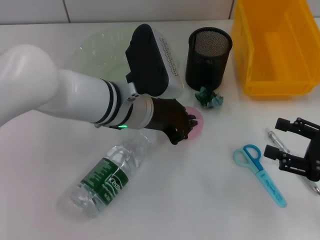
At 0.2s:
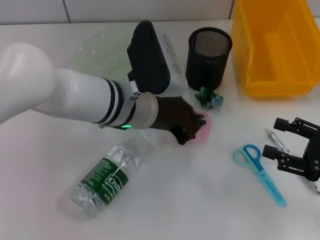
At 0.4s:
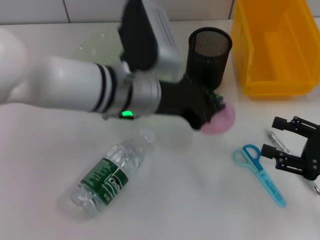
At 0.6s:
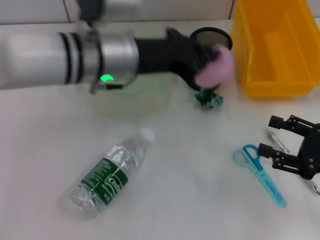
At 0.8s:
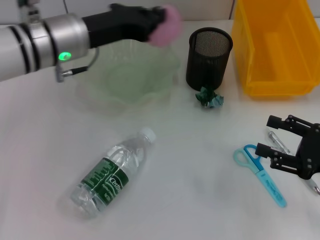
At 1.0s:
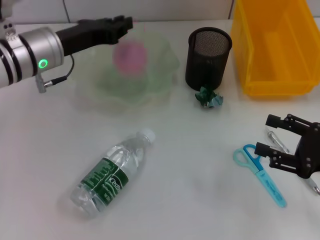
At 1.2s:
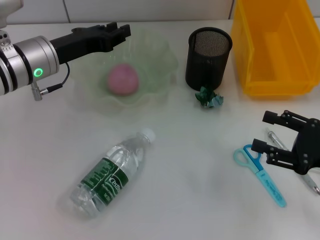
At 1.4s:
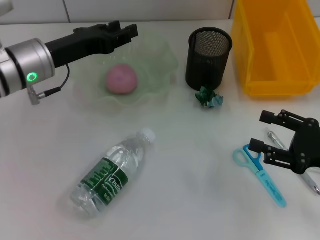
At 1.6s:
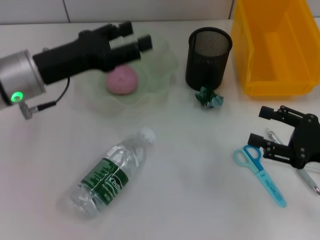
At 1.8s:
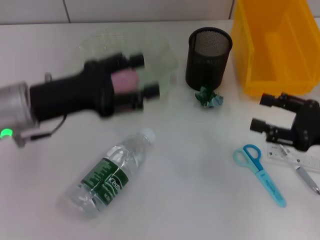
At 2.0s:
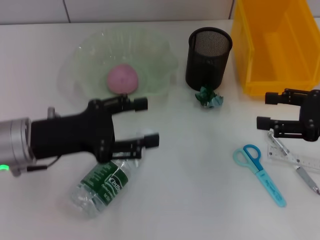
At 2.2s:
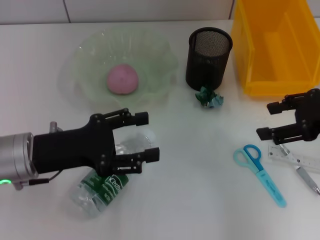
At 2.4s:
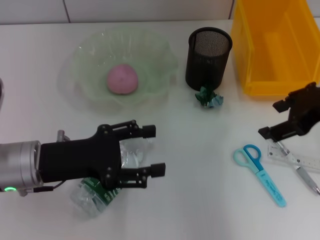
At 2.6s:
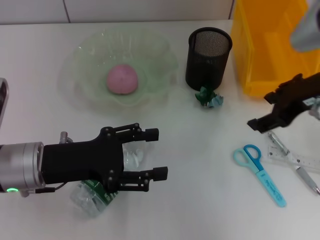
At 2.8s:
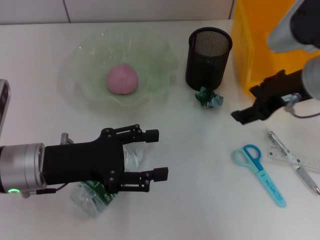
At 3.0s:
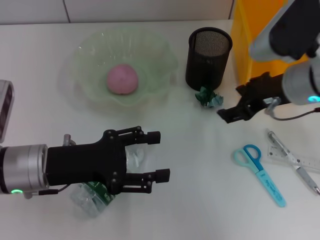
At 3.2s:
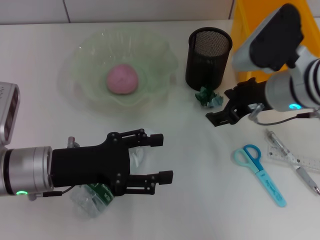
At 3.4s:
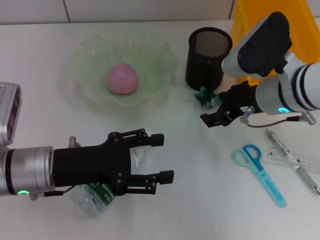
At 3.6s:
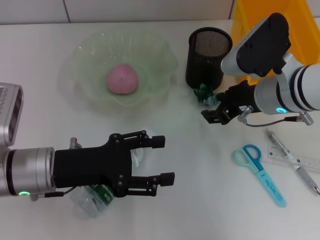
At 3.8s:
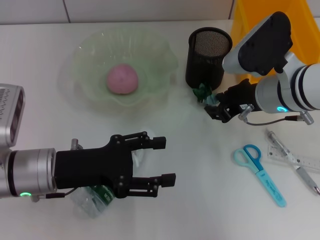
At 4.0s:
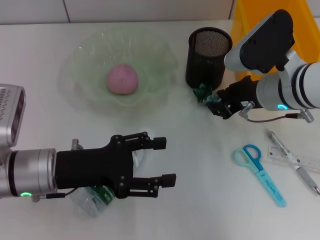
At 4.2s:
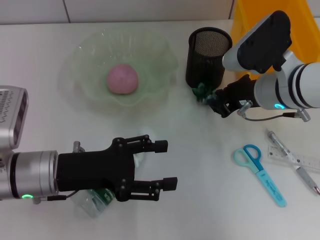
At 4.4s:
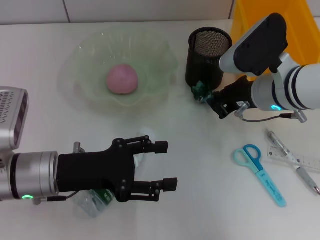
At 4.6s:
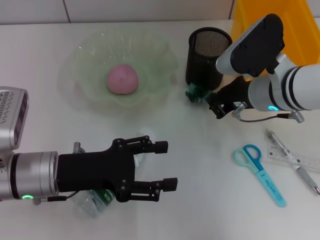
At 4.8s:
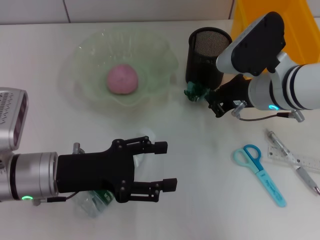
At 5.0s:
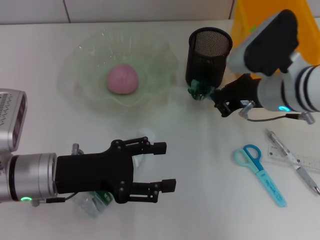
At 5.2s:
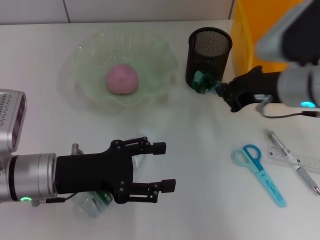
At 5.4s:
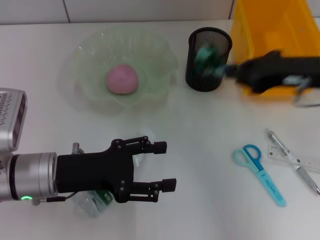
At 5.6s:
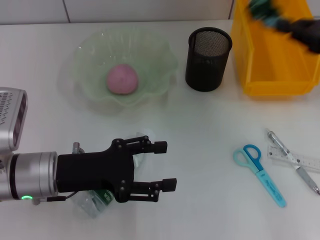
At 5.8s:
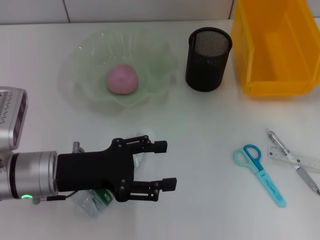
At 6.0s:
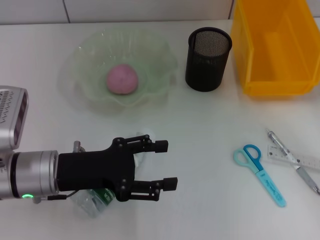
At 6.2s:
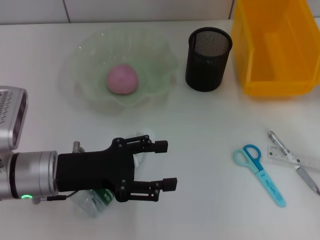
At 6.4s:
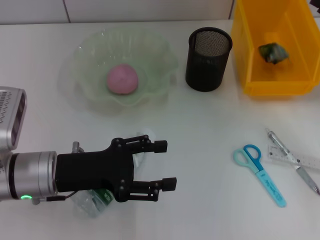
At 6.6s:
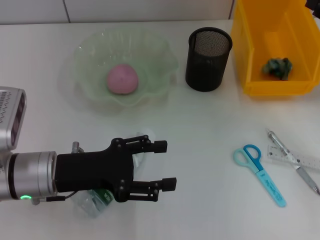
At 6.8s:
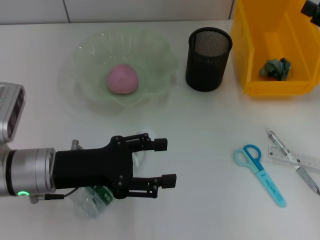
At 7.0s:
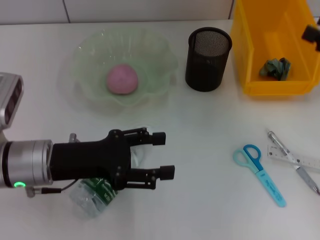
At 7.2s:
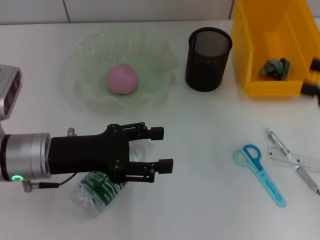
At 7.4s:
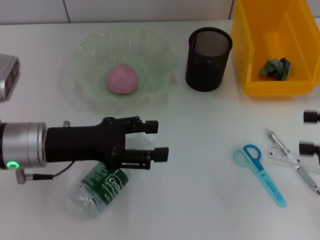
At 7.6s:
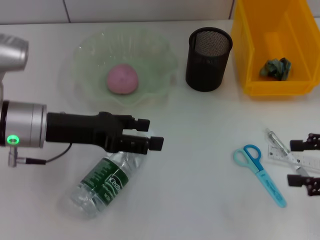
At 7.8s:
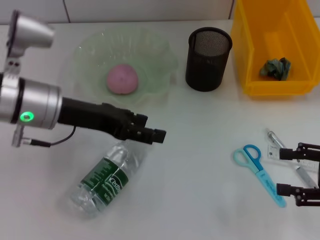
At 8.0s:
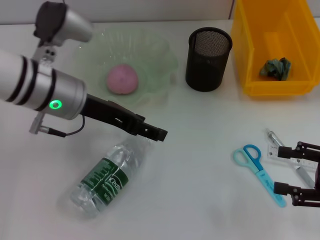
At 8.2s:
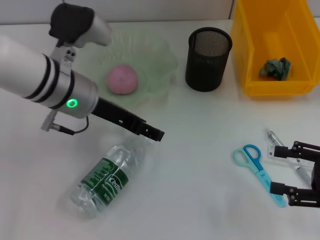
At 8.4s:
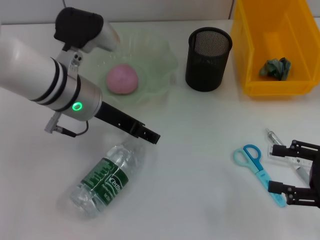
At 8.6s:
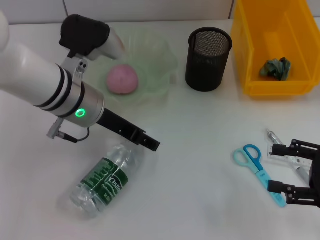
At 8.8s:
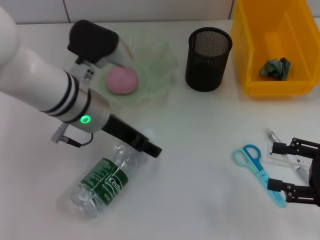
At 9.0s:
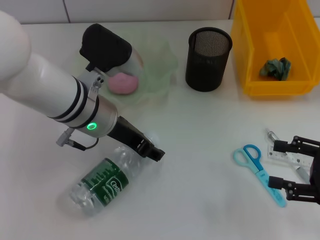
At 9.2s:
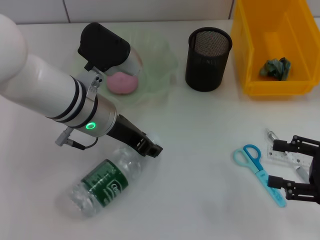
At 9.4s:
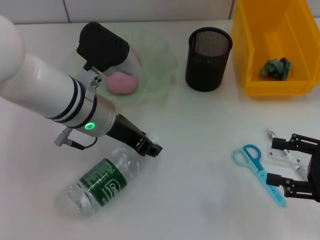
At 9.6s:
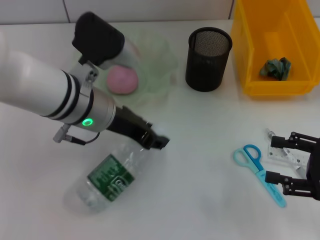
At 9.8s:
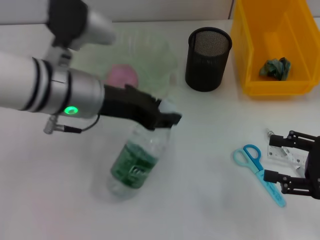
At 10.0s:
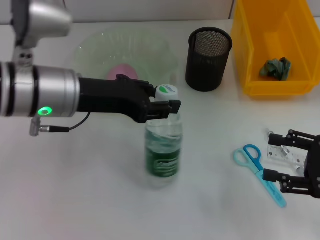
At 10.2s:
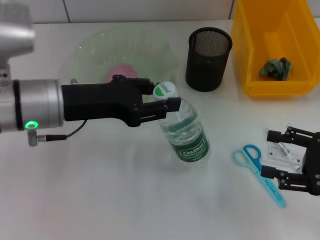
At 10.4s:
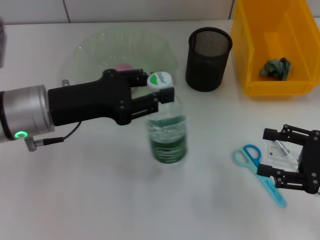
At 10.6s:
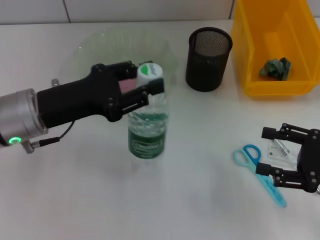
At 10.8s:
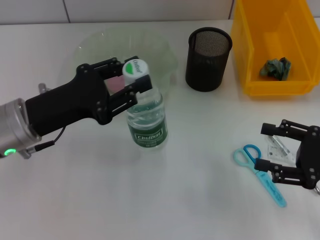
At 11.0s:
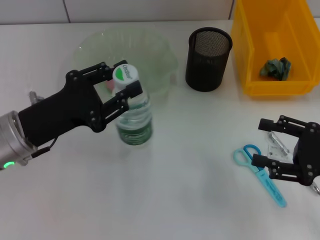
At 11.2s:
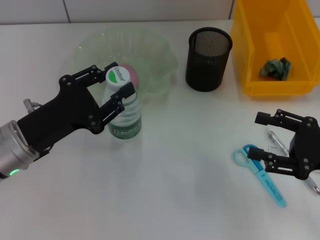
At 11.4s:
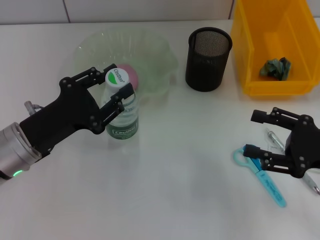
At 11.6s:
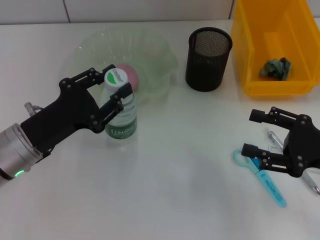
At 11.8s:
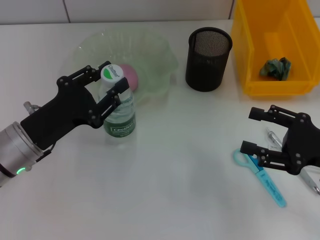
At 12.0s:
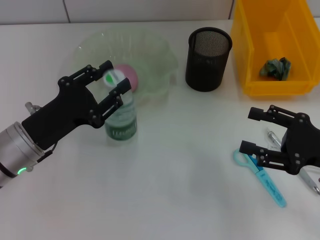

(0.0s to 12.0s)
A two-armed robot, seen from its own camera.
Step, 0.0s - 1.2s: Place the peach into the fruit bowl with the left hand.
Step, 1.6s - 4.4s: Grab the plastic with the right hand.
Step, 4.6s - 6.6s: Place the plastic into the trash can with the right hand.
Step, 6.8s - 9.2s: Grab the water bottle with the left hand.
0.0s - 1.6s: The left gripper is displaced to the left by some 15 cm, and opens up.
1.6s - 3.0s: The left gripper moves backward and downward, approximately 10 cm. The right gripper travels to the left, upward and forward by some 20 cm.
3.0s - 4.4s: The right gripper ends up roughly 5 cm from where it was, and closes its fingers.
4.4s - 6.0s: The right gripper heads to the right, covering roughly 20 cm.
6.0s - 7.6s: The right gripper shifts some 10 cm backward, and opens up, while the left gripper moves approximately 5 cm.
7.6s - 9.0s: The right gripper changes place by about 5 cm. Meanwhile the left gripper goes roughly 10 cm to the right.
9.0s - 10.4s: The left gripper is displaced to the left by roughly 10 cm, and closes its fingers.
10.4s - 12.0s: The left gripper travels downward by about 10 cm.

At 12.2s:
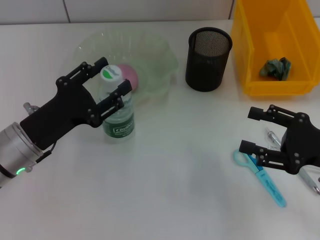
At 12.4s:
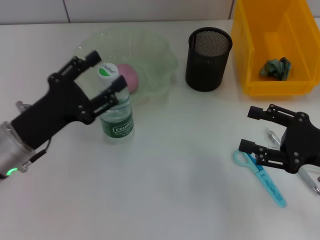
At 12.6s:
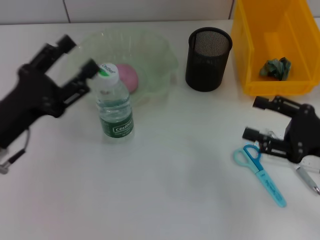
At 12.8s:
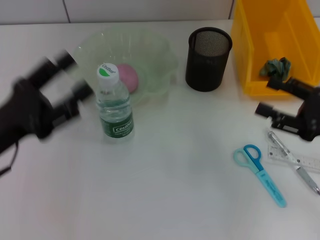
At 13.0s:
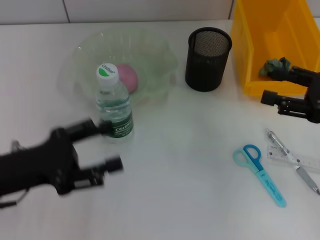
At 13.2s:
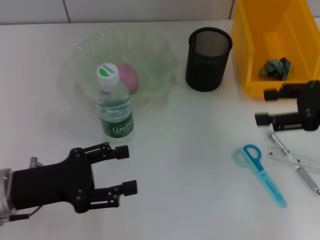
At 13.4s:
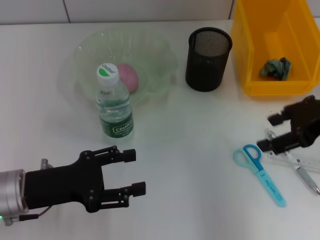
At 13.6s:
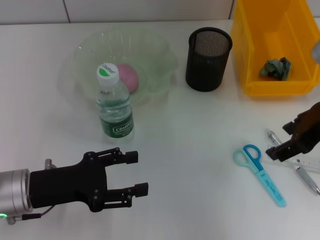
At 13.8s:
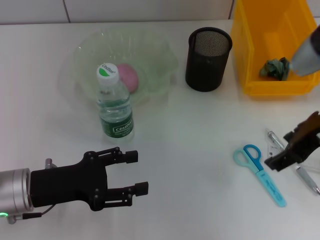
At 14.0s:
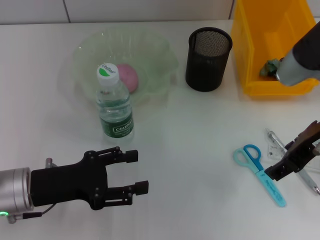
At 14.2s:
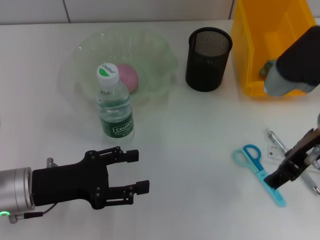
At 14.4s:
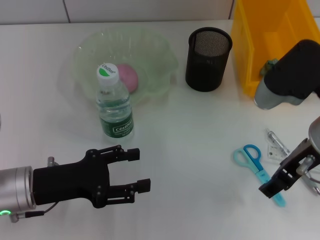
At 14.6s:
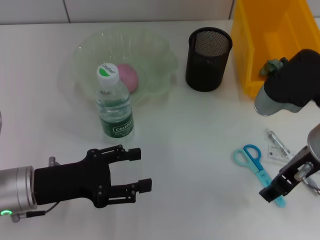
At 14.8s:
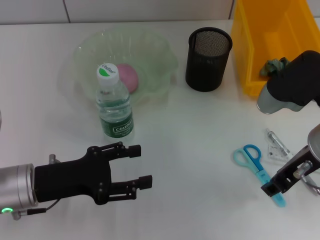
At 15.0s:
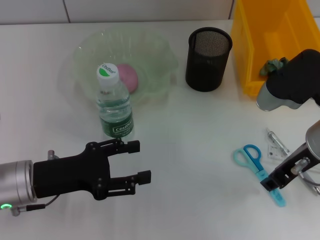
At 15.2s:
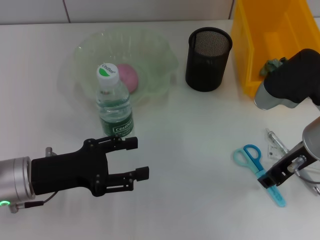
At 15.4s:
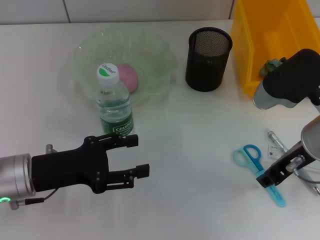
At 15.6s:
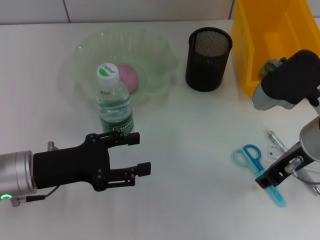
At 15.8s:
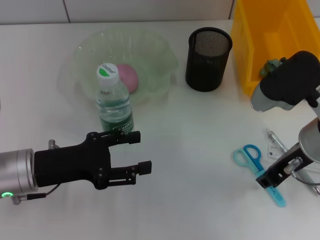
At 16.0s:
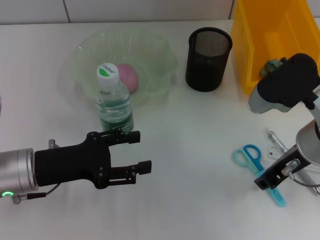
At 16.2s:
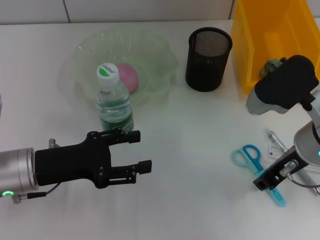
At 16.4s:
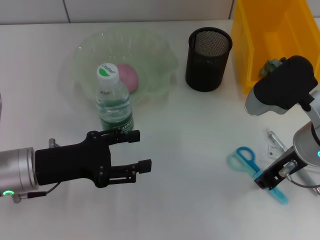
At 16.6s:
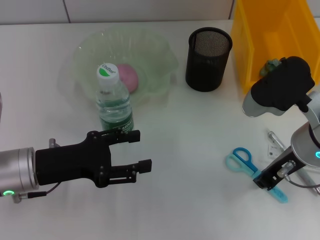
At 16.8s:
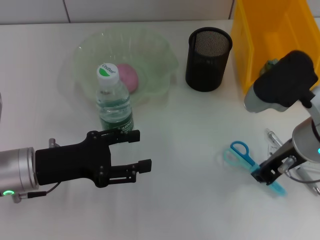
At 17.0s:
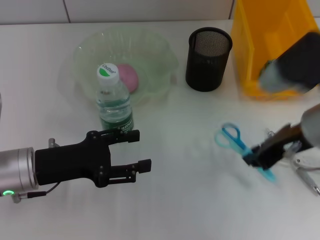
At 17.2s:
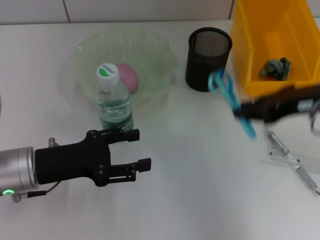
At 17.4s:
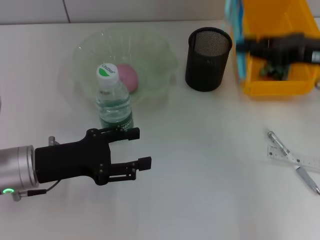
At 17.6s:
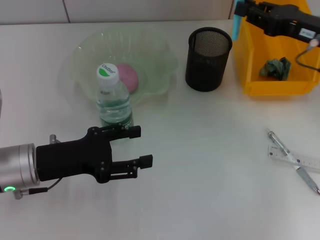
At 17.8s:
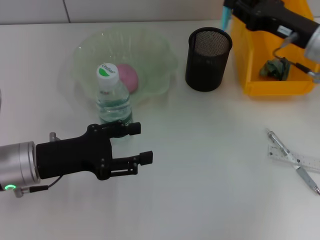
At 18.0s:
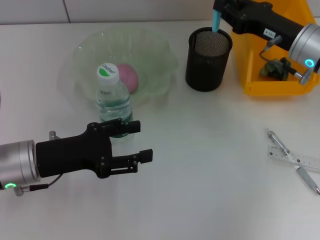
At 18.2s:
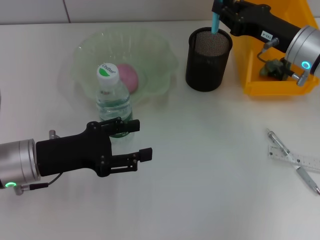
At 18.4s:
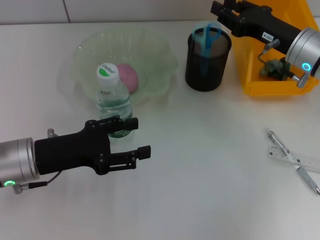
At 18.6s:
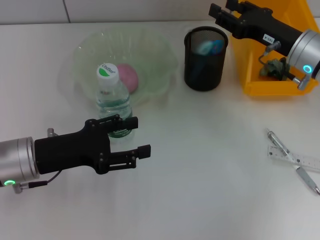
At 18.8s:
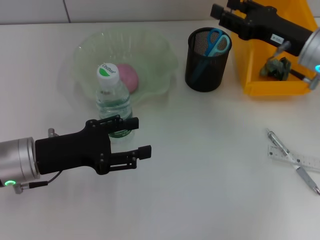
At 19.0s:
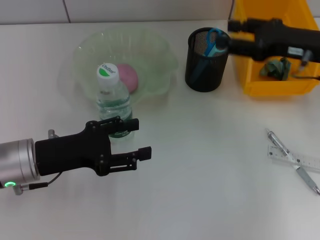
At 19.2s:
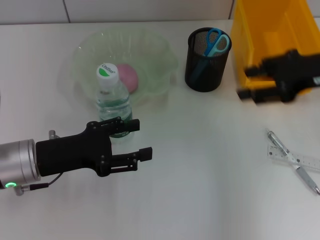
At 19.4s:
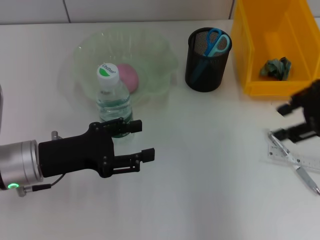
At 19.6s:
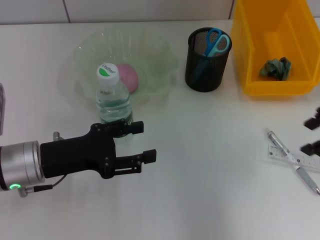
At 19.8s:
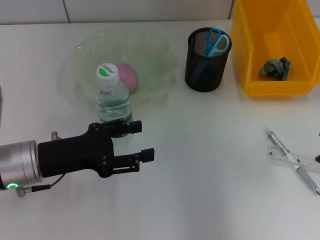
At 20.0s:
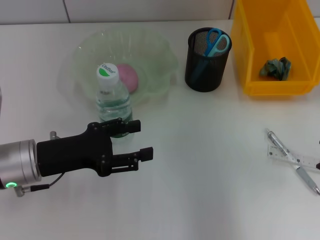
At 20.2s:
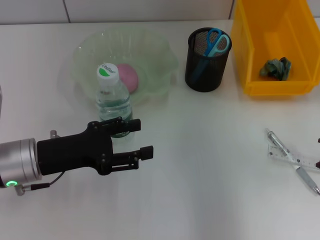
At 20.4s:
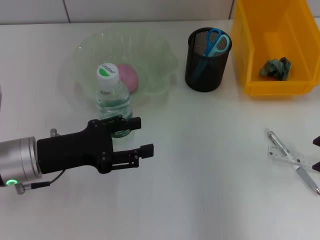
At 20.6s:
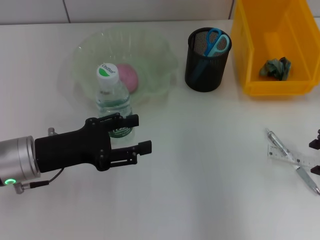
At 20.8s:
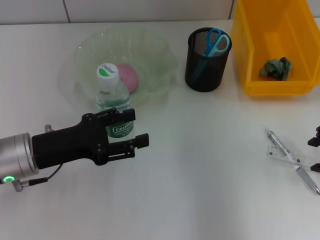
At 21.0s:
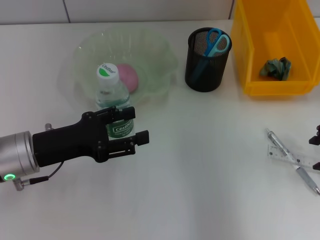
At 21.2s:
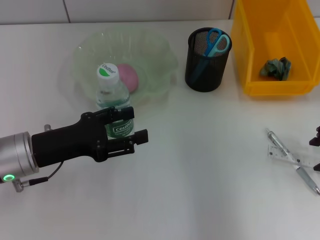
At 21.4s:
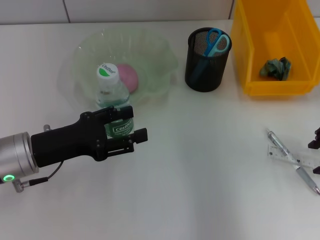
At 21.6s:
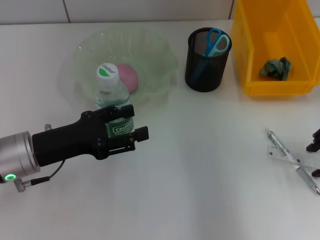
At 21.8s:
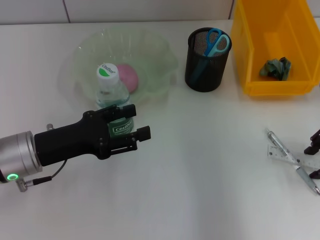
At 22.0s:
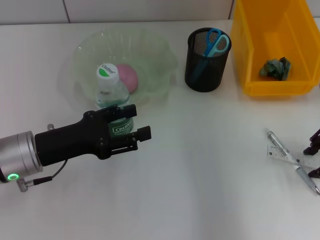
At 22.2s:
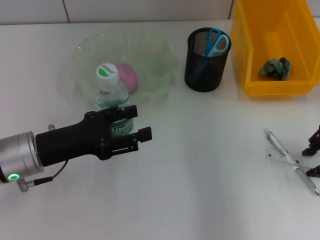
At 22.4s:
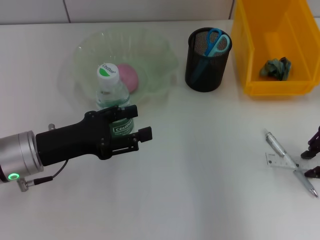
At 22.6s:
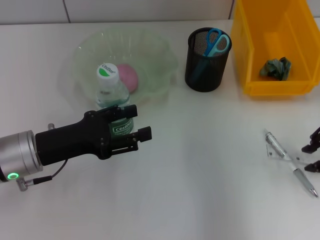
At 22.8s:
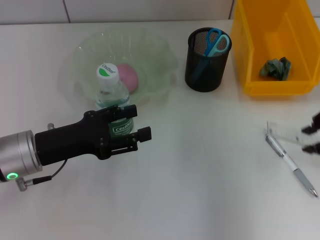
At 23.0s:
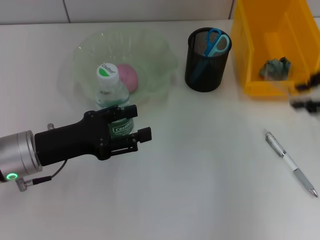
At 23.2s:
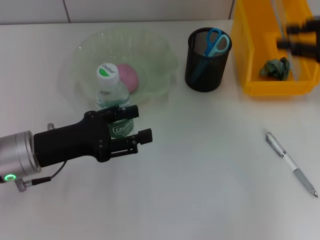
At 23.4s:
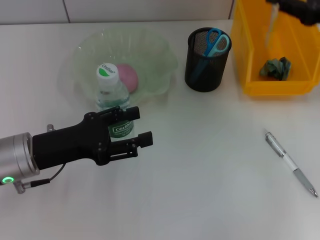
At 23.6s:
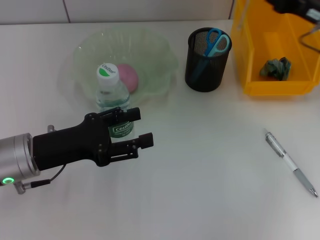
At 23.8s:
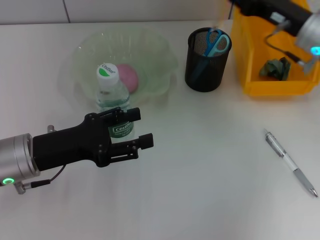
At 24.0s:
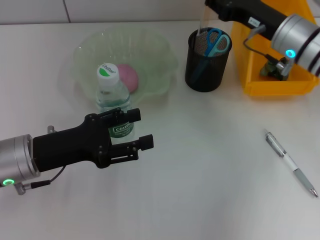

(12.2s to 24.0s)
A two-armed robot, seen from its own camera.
Step, 12.4s - 16.4s: Grab the blue scissors with the right hand.
Step, 16.6s - 19.0s: Place the blue scissors into the pen holder with the right hand.
Step, 19.2s - 22.4s: Grab the ruler with the right hand.
12.2s - 13.6s: The left gripper opens up. The right gripper heads upward, to the left and forward, covering some 15 cm.
13.6s - 15.2s: The right gripper heads downward, covering approximately 5 cm, and closes up.
15.2s - 16.6s: The grippers move only a little.
16.6s - 18.2s: The right gripper goes approximately 10 cm forward.
18.2s - 19.6s: The right gripper shifts approximately 15 cm upward, backward and to the right.
19.6s - 21.0s: The right gripper shifts some 5 cm downward.
21.0s - 22.6s: There are only small adjustments of the grippers.
22.6s - 24.0s: The right gripper heads to the left and forward, covering approximately 10 cm.
